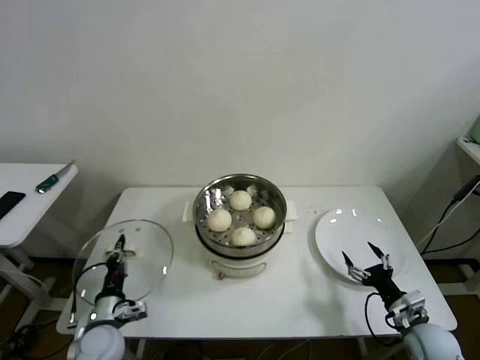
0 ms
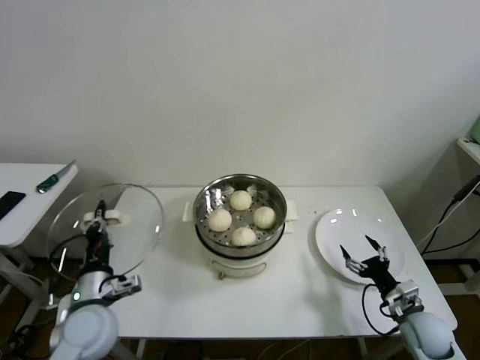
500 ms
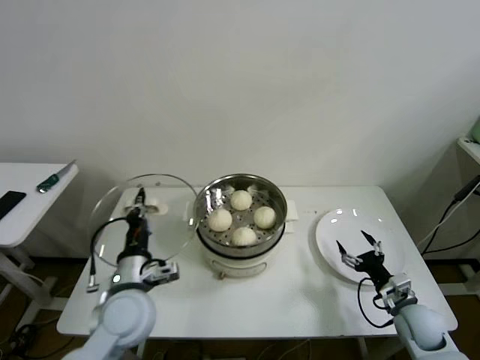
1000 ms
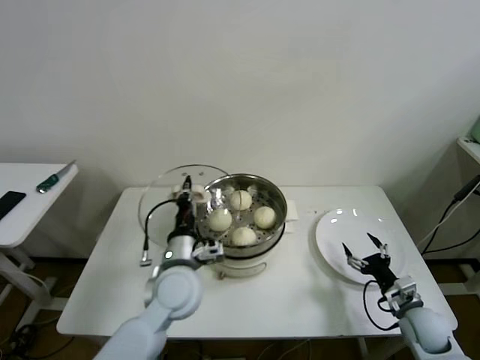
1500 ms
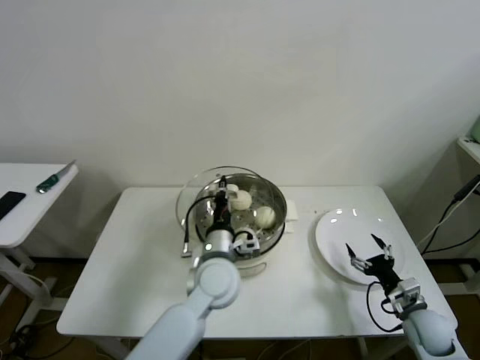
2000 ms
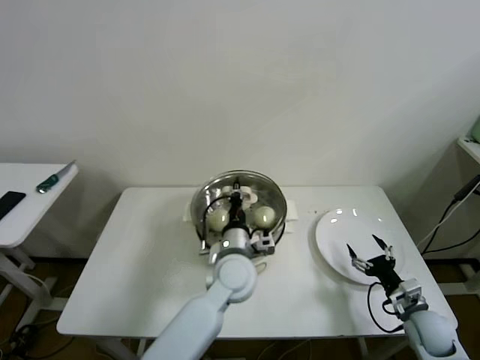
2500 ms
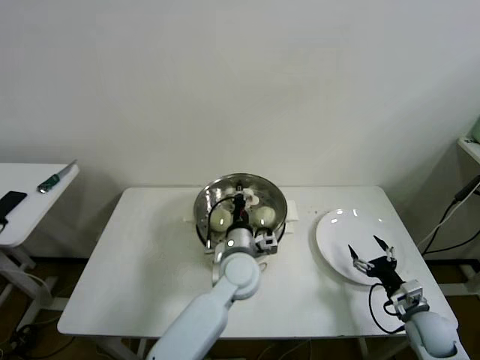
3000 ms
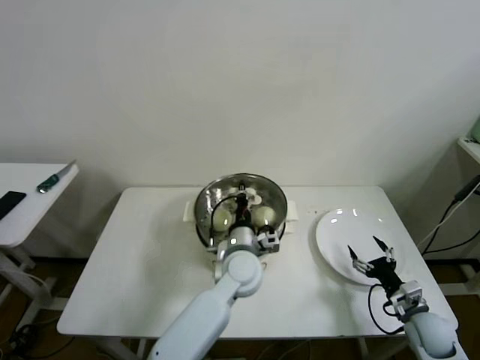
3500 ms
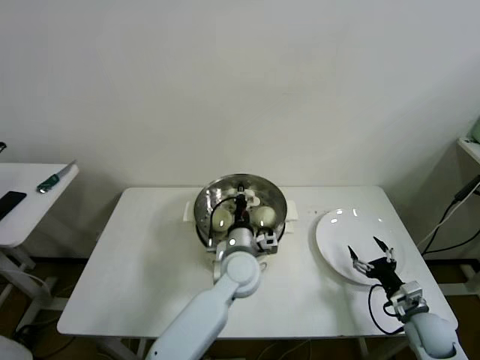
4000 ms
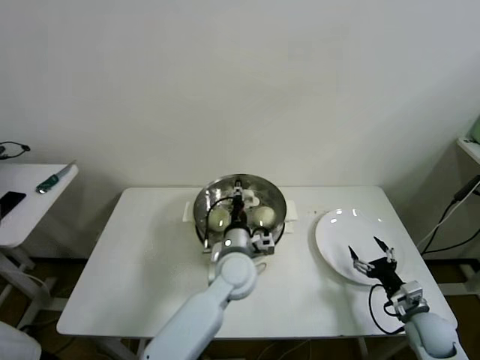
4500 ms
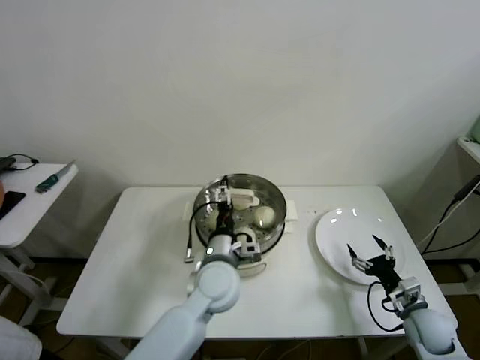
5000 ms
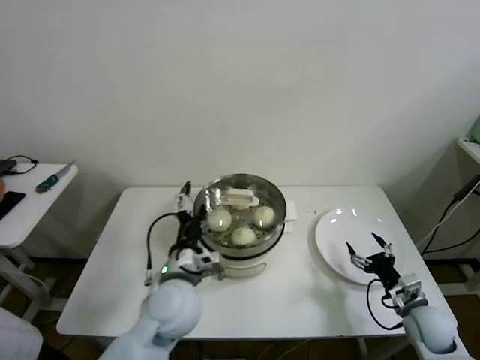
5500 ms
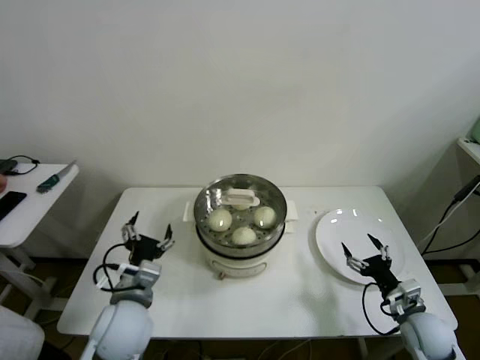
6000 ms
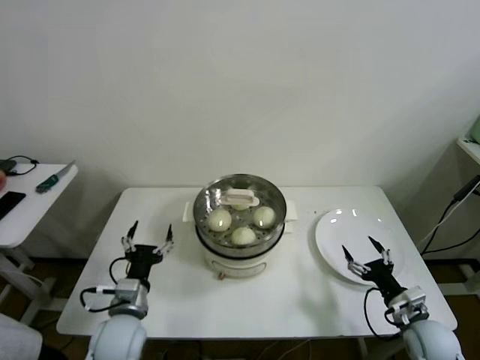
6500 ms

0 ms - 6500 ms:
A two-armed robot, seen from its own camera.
Step, 0 ms - 4500 ms: Place the pot lid on the steamer with left gripper.
0 ms - 2000 ms: The left gripper is displaced to the right and upward by roughly 30 cm.
2000 ms - 4500 ms: The left gripper shifts by about 5 cm.
4500 ms - 6500 ms: The left gripper moves to the left and backward, some 25 cm, and opens its fingers.

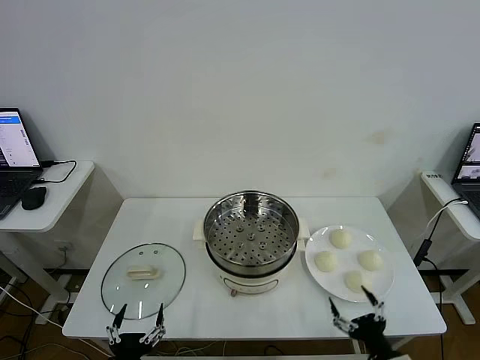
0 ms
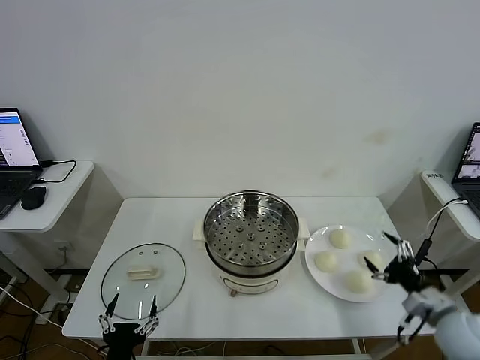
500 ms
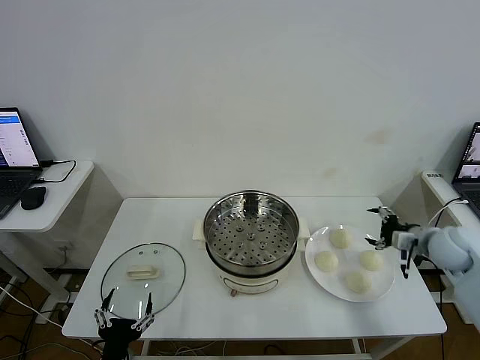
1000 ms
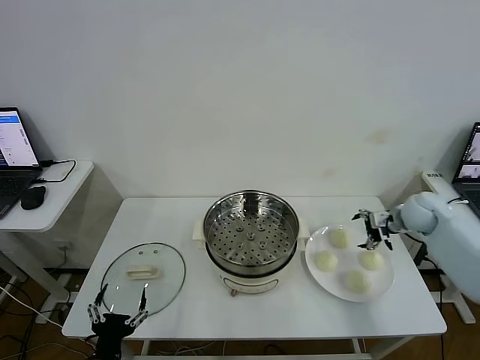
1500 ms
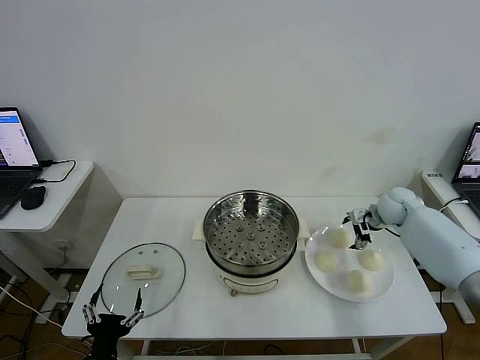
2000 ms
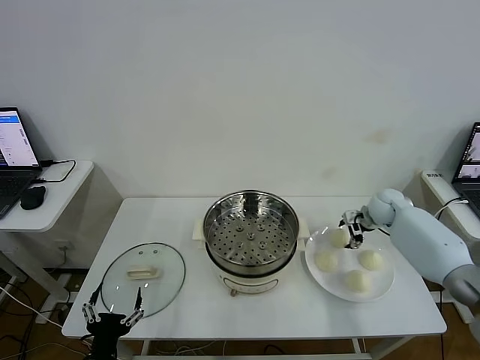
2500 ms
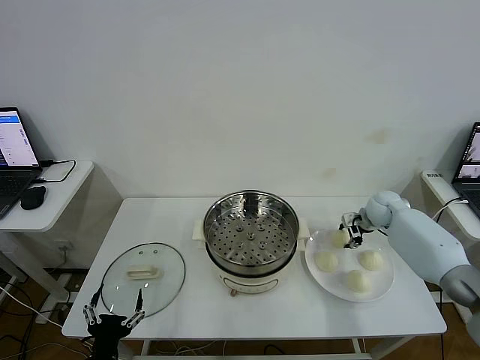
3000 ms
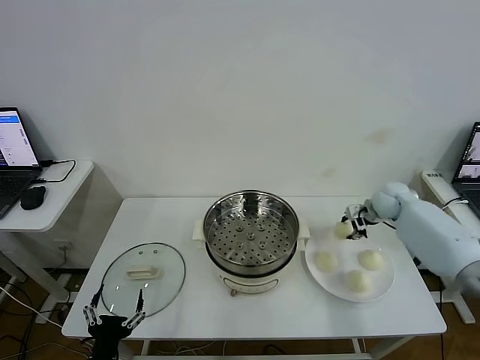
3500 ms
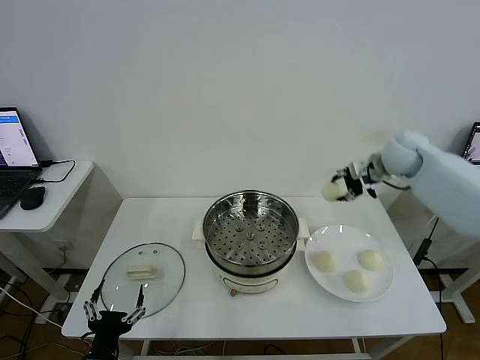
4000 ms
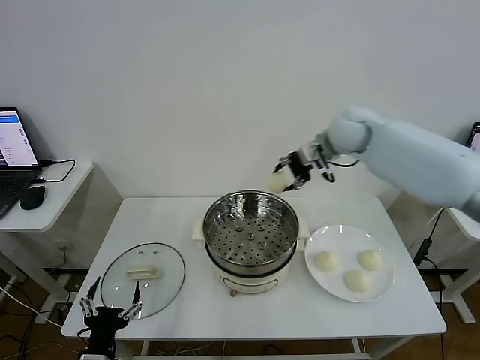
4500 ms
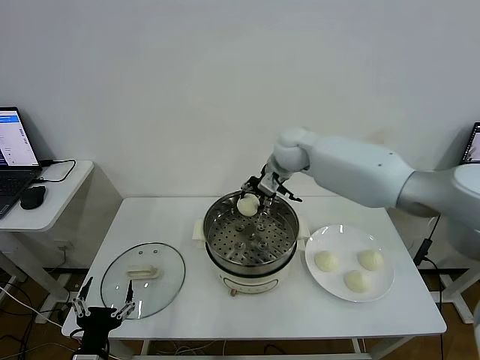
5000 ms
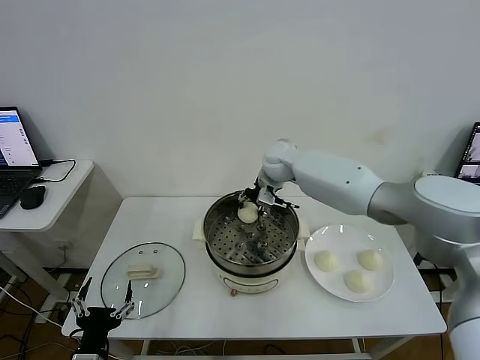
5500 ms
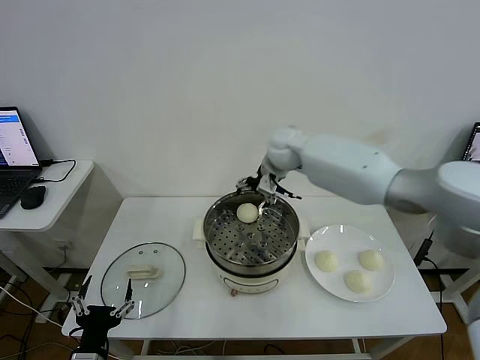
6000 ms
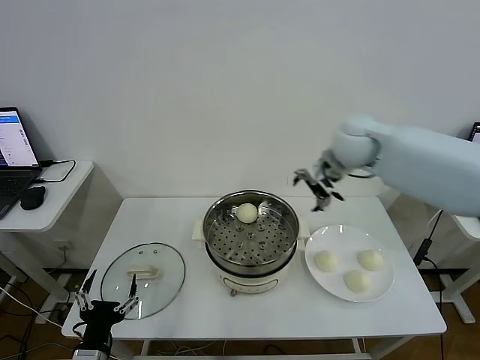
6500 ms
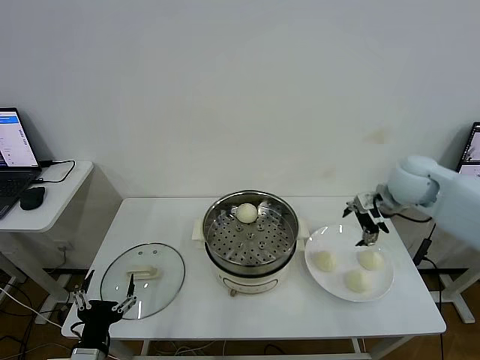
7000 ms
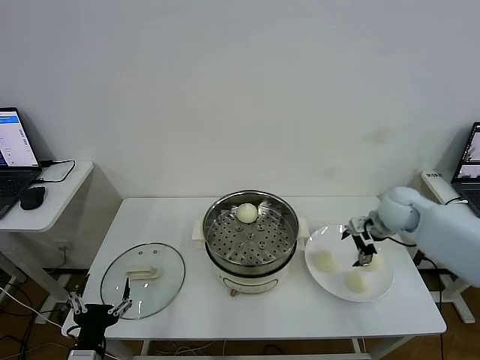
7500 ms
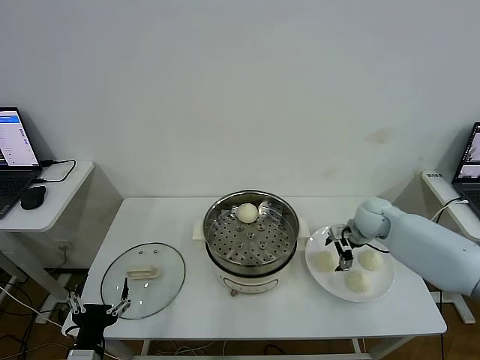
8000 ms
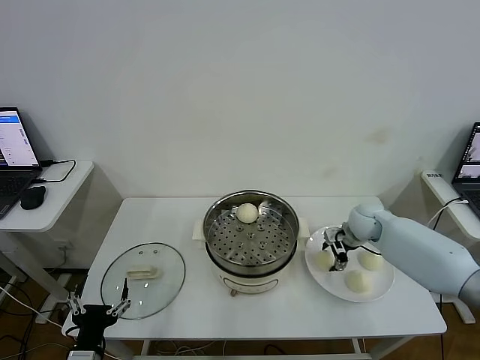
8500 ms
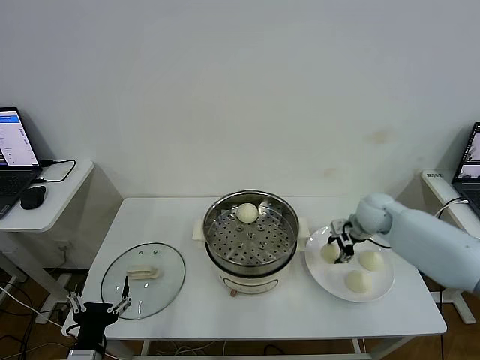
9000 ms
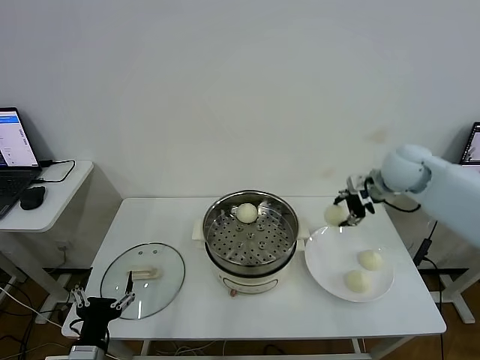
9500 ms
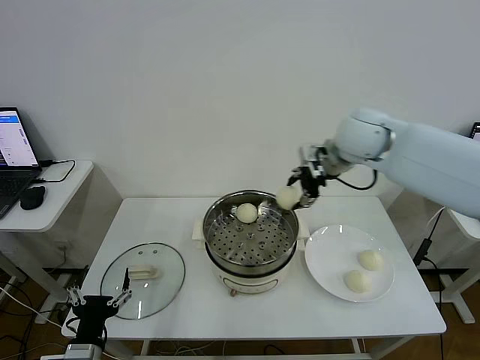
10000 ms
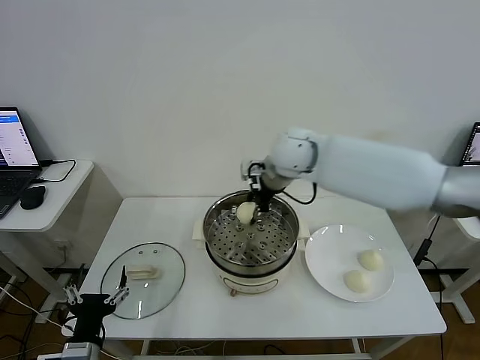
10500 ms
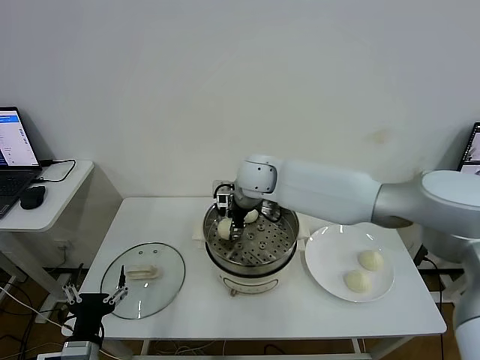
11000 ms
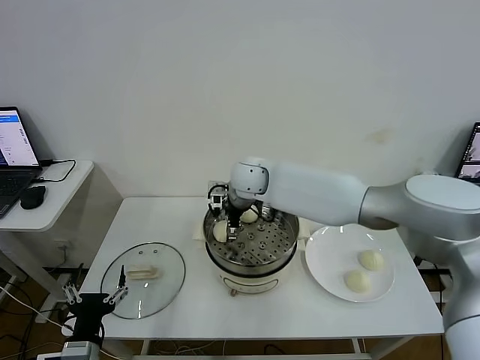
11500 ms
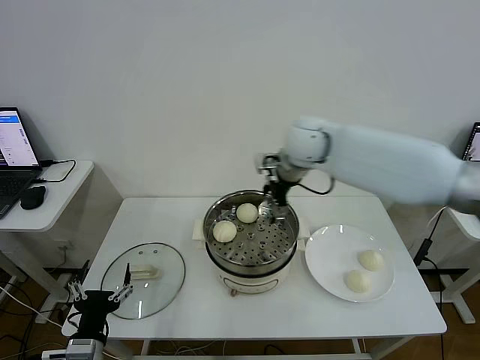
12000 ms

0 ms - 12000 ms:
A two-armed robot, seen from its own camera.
Step, 0 ms - 2500 ms: Grasp the baozi in the plate with right gripper.
Step, 3000 ms - 6000 ms: Place the baozi on the steamer with right gripper.
Step, 6500 ms - 8500 ms: Grasp the baozi in the plate with right gripper.
Step, 9000 ms - 11500 ms: Place the baozi on the steamer with right gripper.
2000 ms - 4000 ms: The right gripper moves upward, approximately 20 cm, and closes.
4000 ms - 6000 ms: The right gripper goes some 20 cm to the left, and opens up.
6000 ms - 8000 ms: The right gripper travels to the right and downward by about 30 cm.
8000 ms - 10000 ms: The right gripper is displaced upward and to the left by approximately 30 cm, and closes.
10000 ms - 12000 ms: The right gripper goes to the left and returns, some 15 cm each way, and opens its fingers.

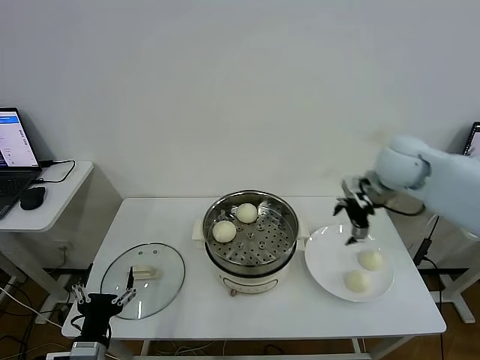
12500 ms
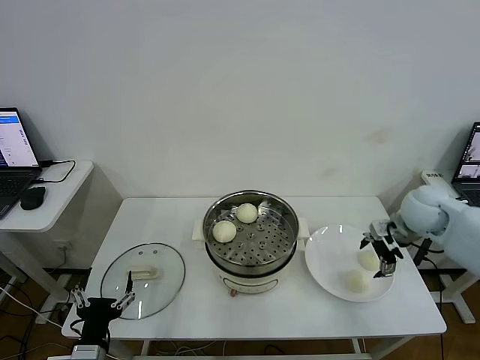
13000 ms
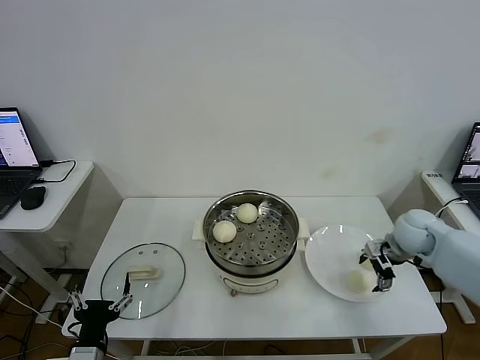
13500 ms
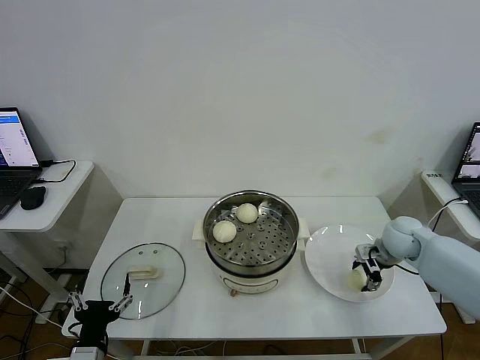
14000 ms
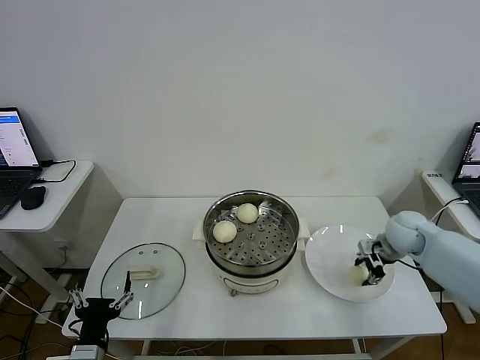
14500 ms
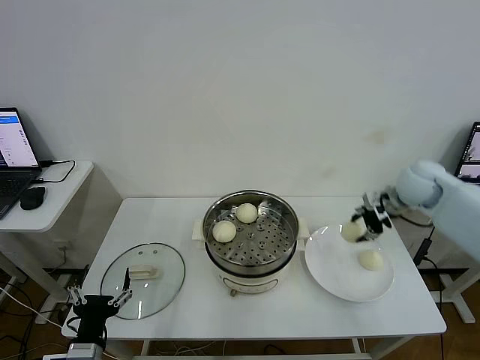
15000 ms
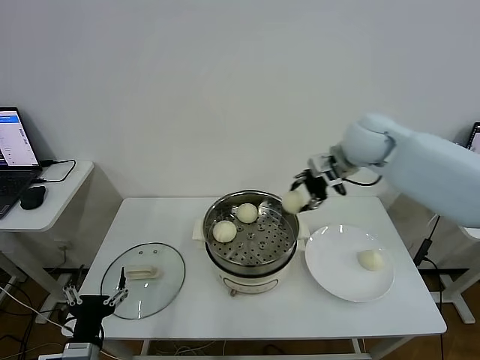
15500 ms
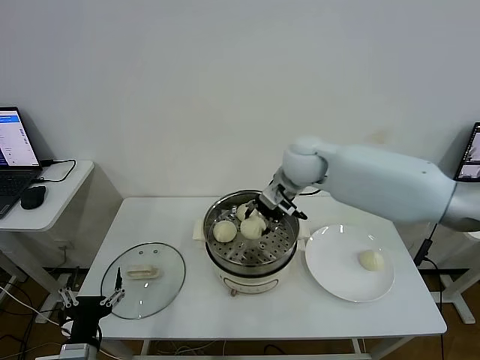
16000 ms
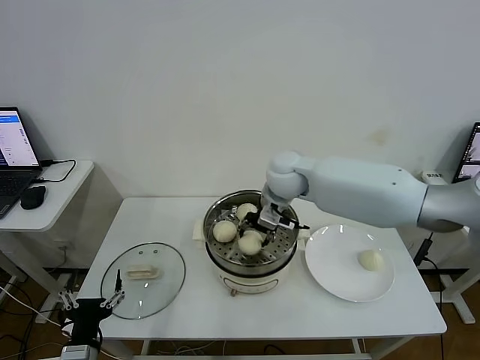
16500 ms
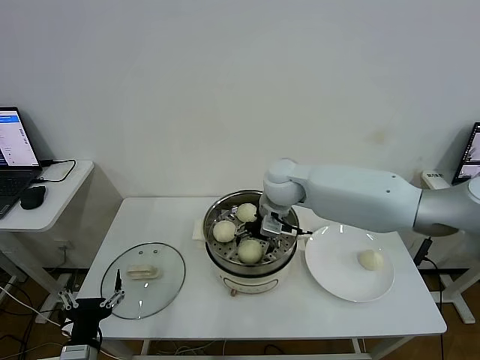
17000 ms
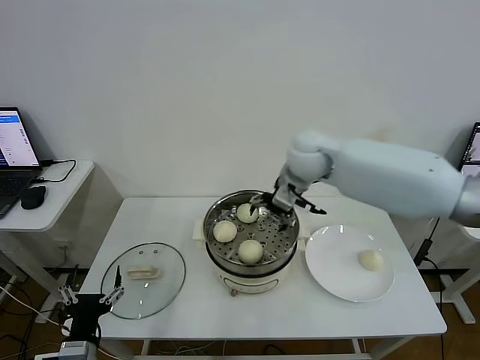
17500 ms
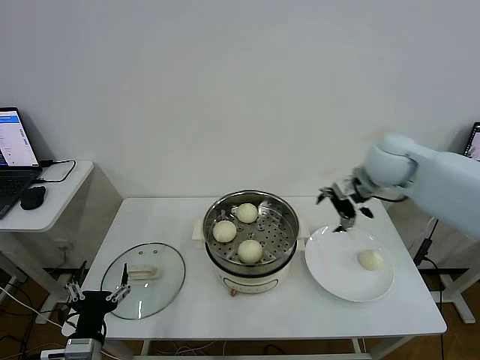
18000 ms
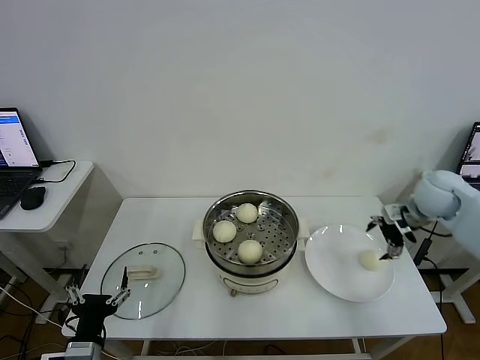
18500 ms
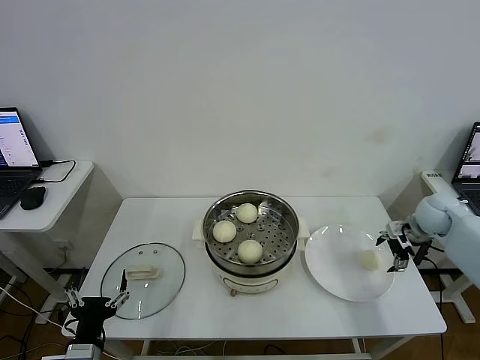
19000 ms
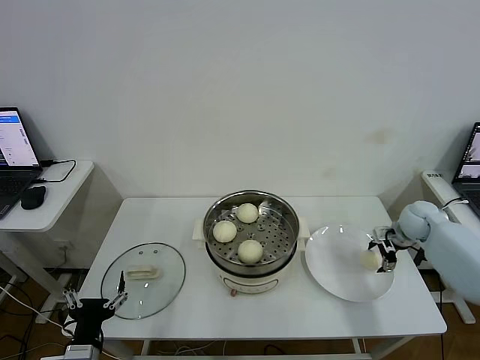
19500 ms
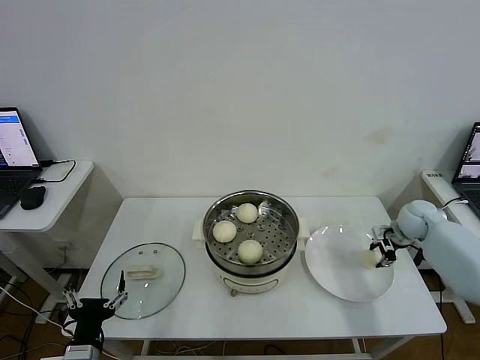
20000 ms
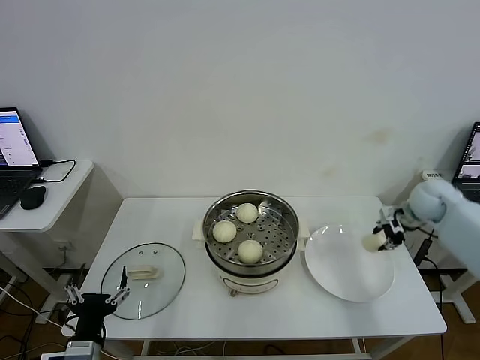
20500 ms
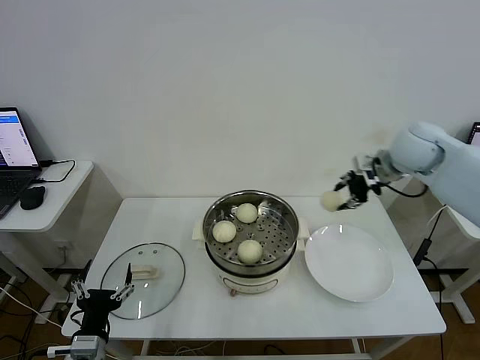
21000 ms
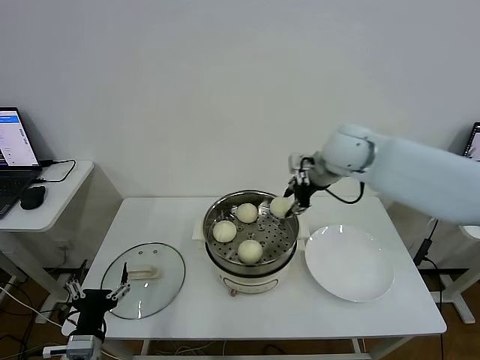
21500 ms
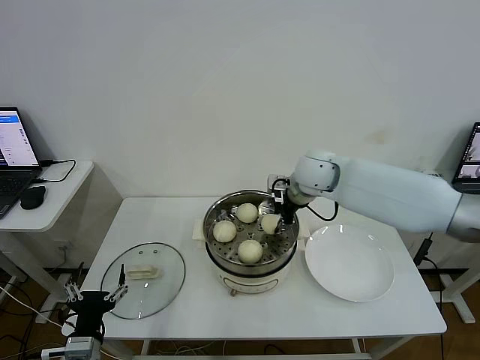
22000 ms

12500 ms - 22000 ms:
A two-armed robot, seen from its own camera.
Step, 12500 ms - 14000 ms: Grasp the baozi in the plate with right gripper.
Step, 14500 ms - 17000 ms: Place the baozi on the steamer with right gripper.
Step, 17500 ms - 20000 ms: Grasp the baozi in the plate with right gripper.
12500 ms - 14500 ms: The right gripper travels downward by about 15 cm, and closes its fingers.
14500 ms - 16500 ms: The right gripper shifts about 30 cm to the left.
16500 ms - 18000 ms: The right gripper heads to the right, covering approximately 20 cm, and opens its fingers.
18000 ms - 20000 ms: The right gripper moves downward and to the right, roughly 25 cm, and closes up.
20000 ms - 22000 ms: The right gripper is displaced to the left and upward by roughly 35 cm.
